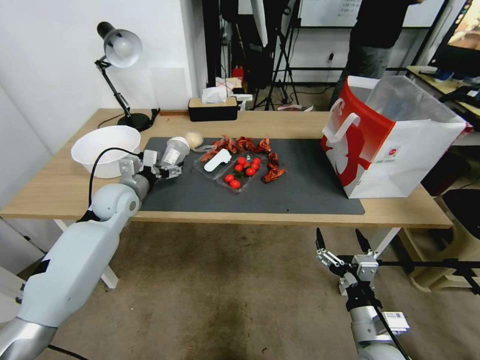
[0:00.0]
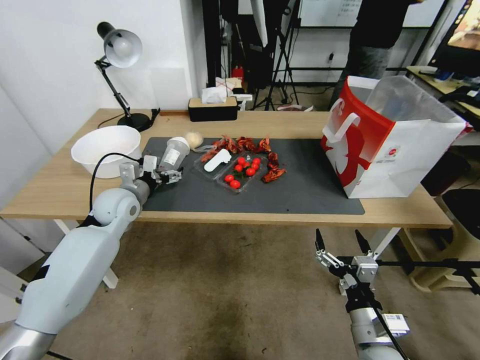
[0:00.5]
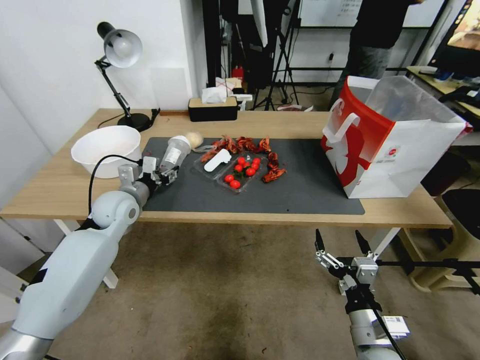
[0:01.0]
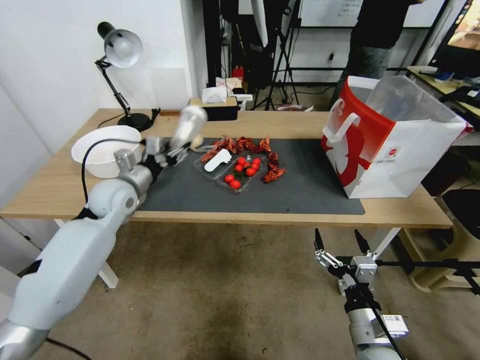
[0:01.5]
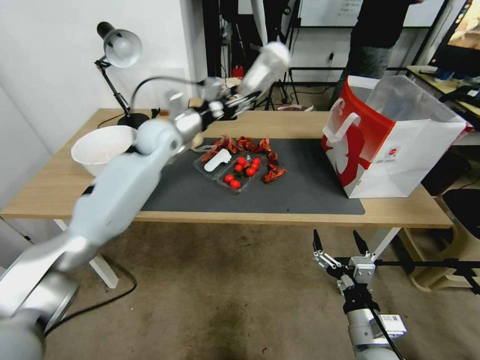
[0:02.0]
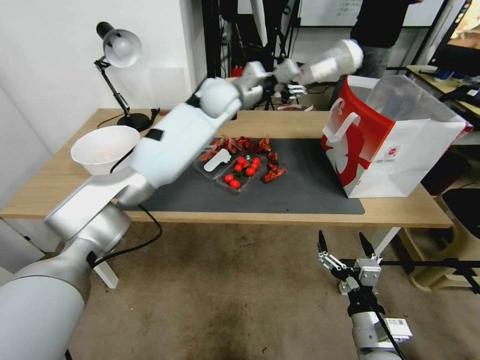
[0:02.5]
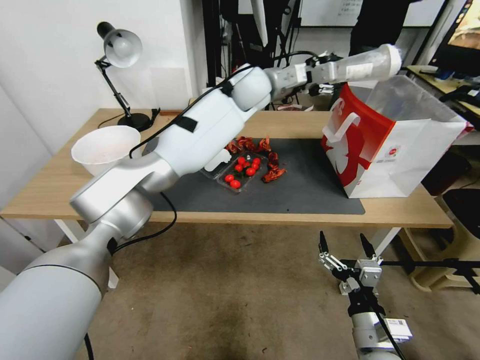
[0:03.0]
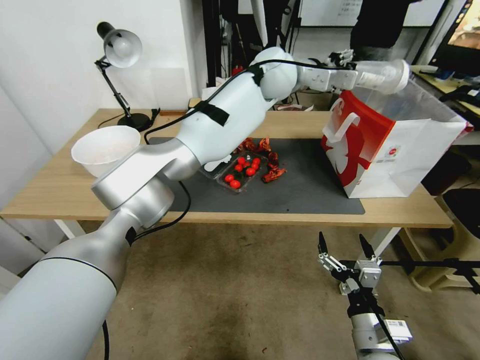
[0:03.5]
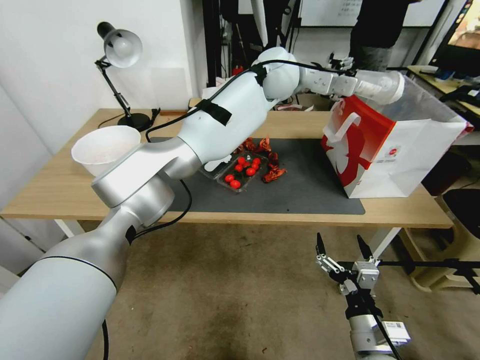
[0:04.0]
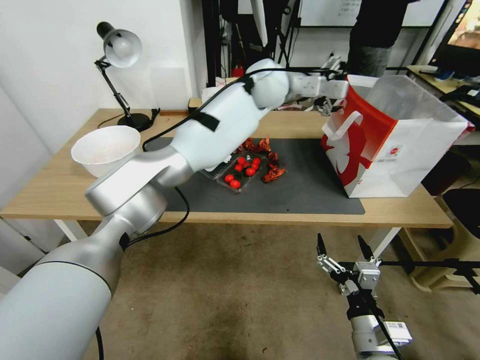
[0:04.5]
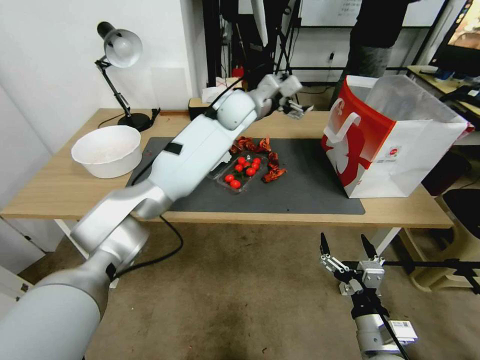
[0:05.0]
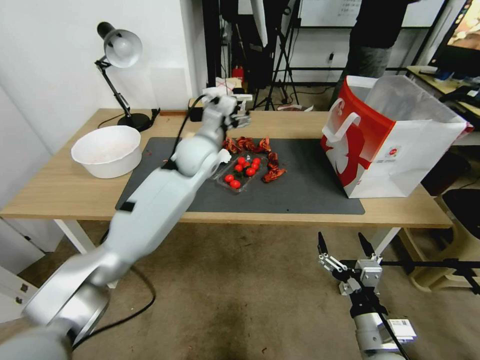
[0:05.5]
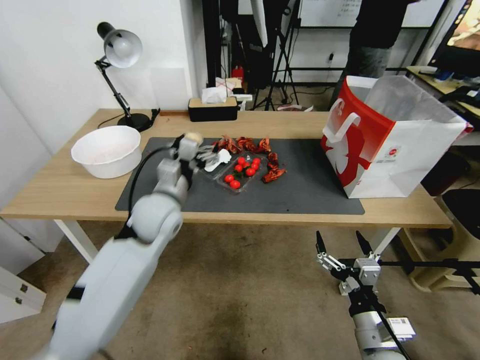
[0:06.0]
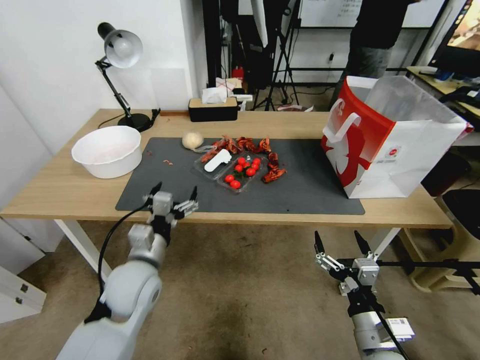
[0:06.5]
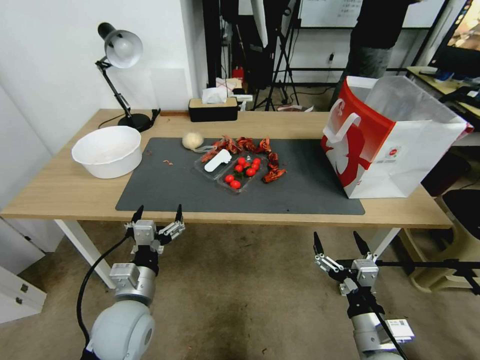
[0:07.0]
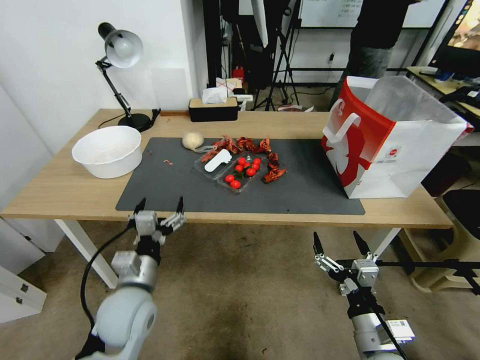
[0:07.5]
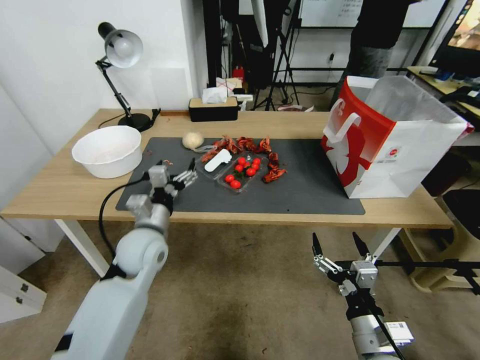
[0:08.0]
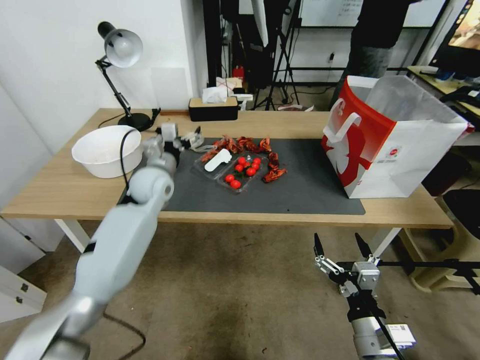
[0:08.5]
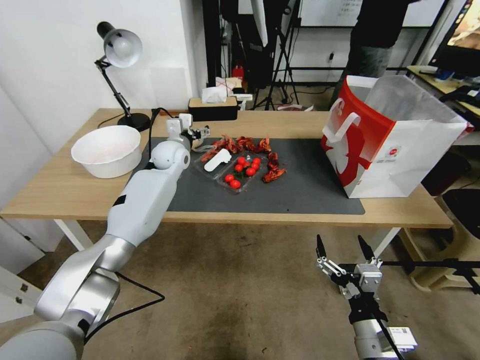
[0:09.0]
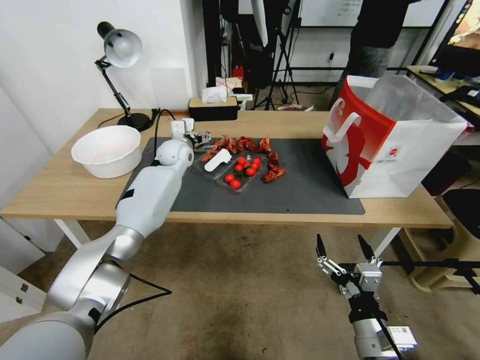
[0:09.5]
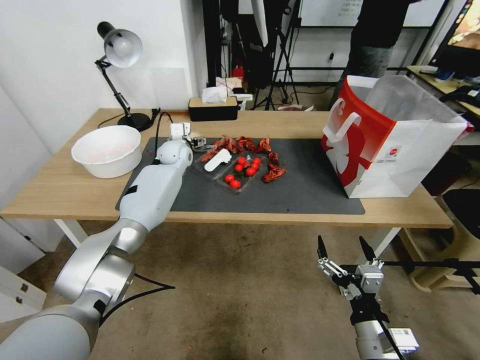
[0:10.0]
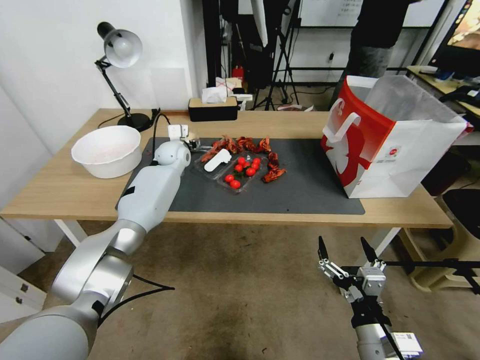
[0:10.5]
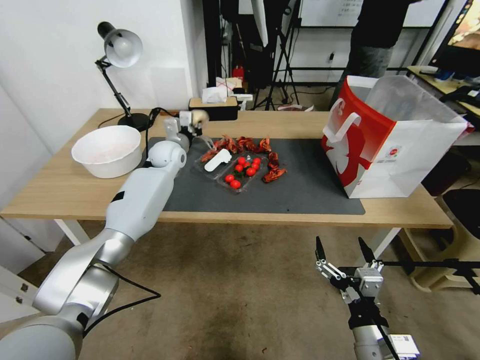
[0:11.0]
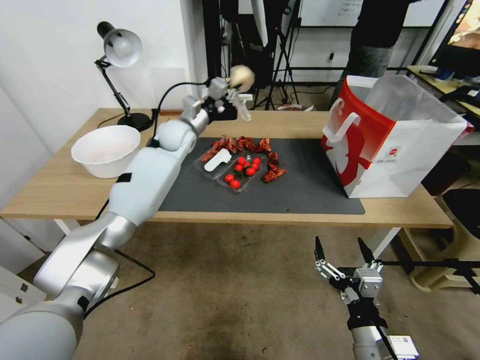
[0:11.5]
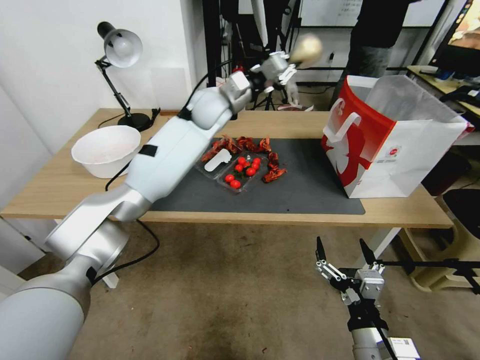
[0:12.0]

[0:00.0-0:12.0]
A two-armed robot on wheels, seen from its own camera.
0:00.0 to 0:02.0: The left gripper heads upward, to the right and forward, covering approximately 20 cm, and closes.
0:02.0 to 0:04.0: The left gripper shifts roughly 30 cm to the right and upward.
0:04.0 to 0:06.0: The left gripper shifts approximately 40 cm to the left, downward and backward, and opens.
0:06.0 to 0:08.0: The left gripper shifts some 15 cm backward and downward.
0:08.0 to 0:10.0: The left gripper moves forward, approximately 35 cm.
0:10.0 to 0:12.0: The left gripper goes roughly 20 cm upward and to the right, and closes.

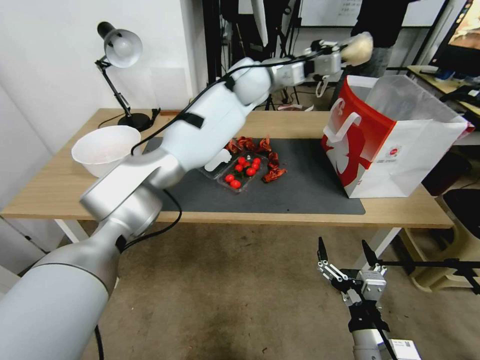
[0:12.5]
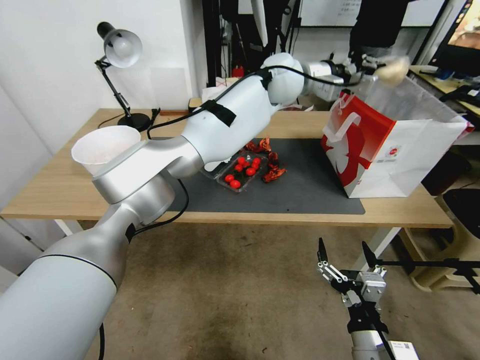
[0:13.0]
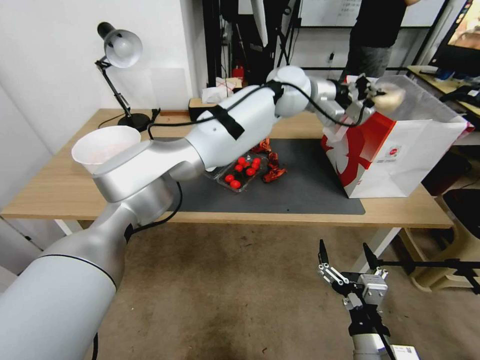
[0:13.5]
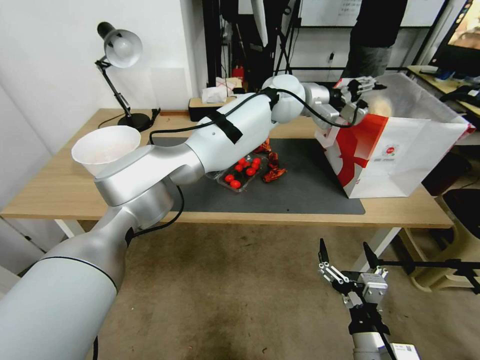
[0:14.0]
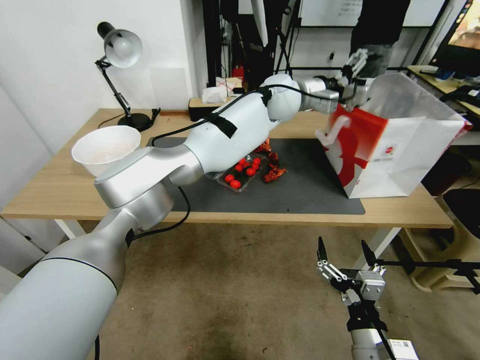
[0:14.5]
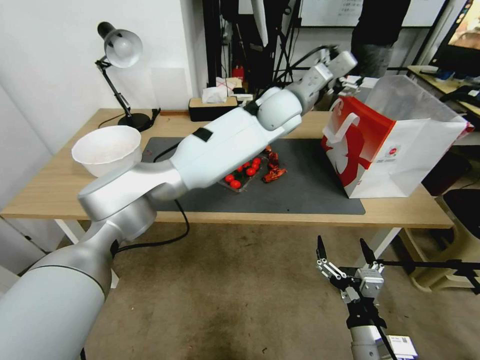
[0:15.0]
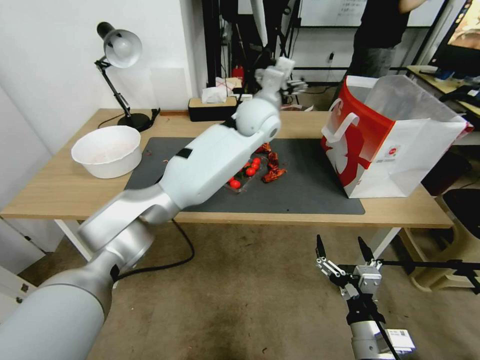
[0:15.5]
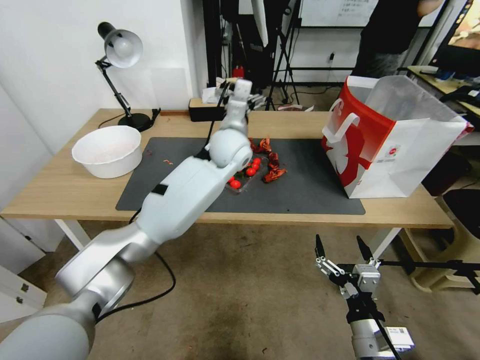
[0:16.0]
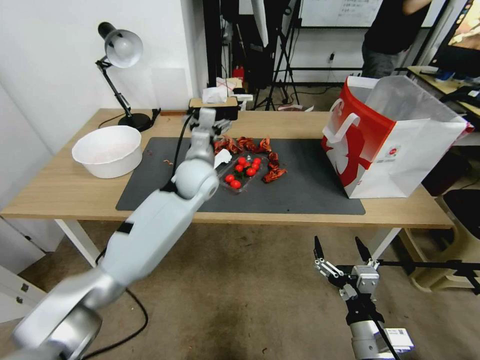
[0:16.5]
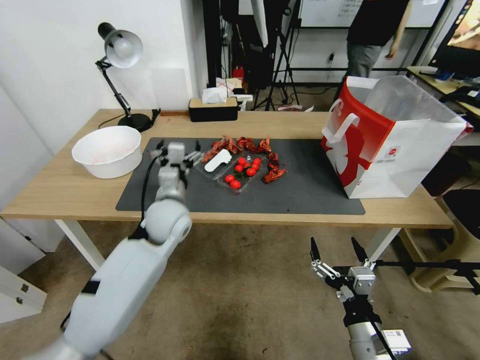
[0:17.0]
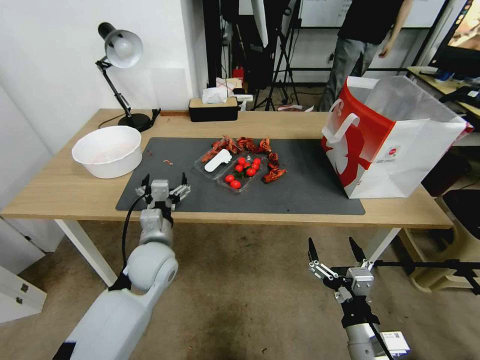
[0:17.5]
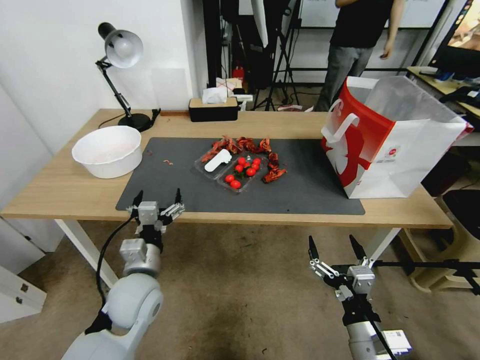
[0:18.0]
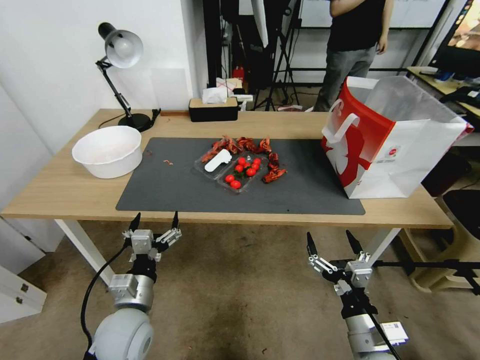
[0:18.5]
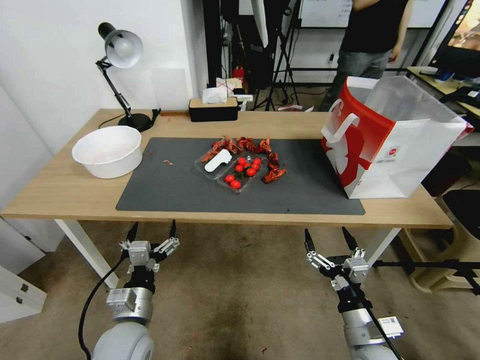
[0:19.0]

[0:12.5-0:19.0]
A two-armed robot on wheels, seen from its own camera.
0:12.5 to 0:14.5: The left gripper moves to the right, about 10 cm, and opens up.
0:14.5 to 0:17.0: The left gripper is displaced to the left, downward and backward by about 35 cm.
0:17.0 to 0:19.0: The left gripper goes roughly 25 cm backward and downward.
